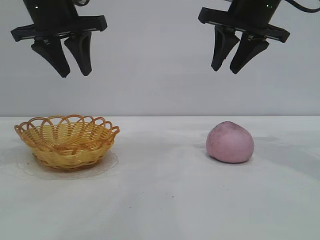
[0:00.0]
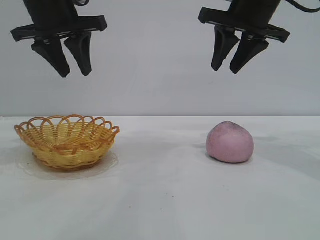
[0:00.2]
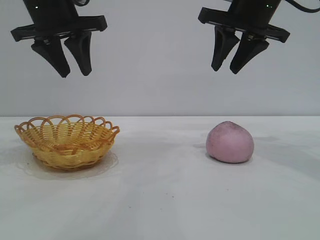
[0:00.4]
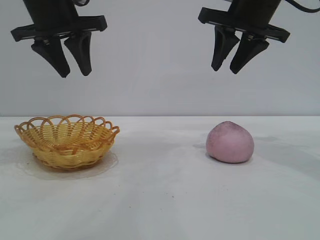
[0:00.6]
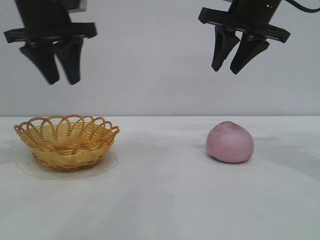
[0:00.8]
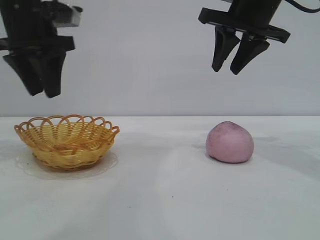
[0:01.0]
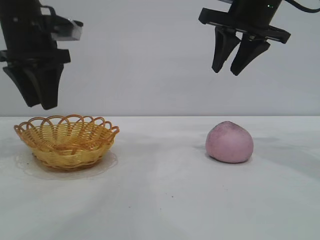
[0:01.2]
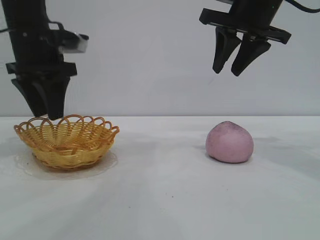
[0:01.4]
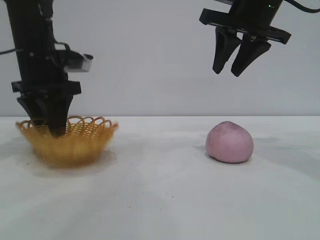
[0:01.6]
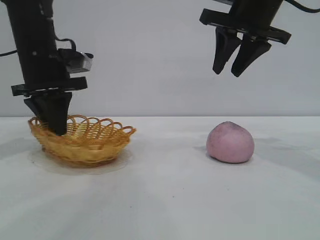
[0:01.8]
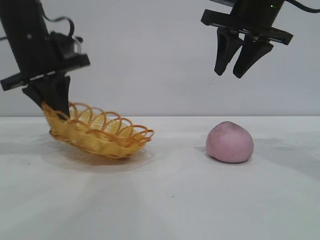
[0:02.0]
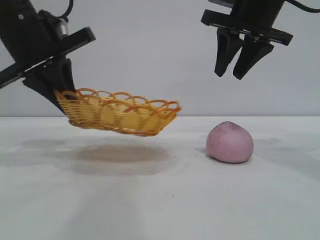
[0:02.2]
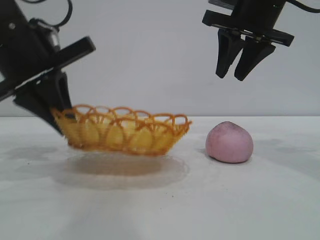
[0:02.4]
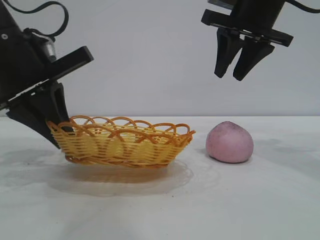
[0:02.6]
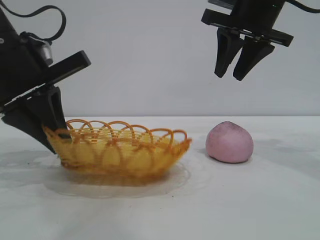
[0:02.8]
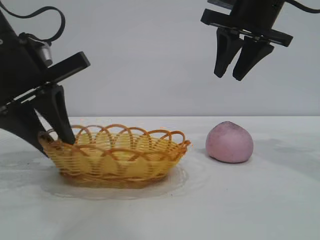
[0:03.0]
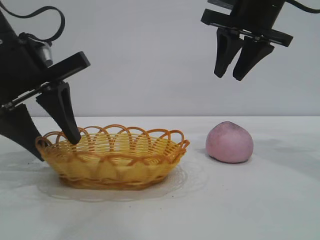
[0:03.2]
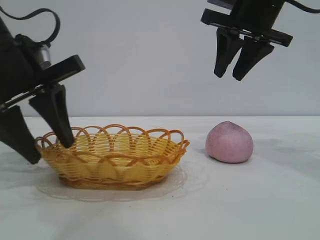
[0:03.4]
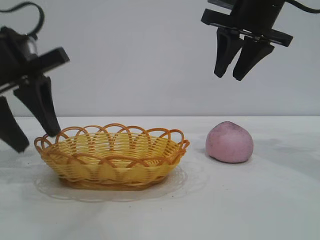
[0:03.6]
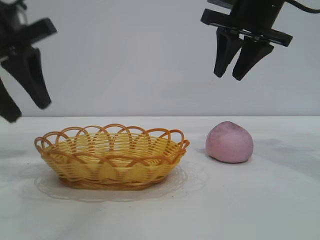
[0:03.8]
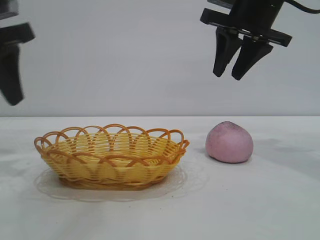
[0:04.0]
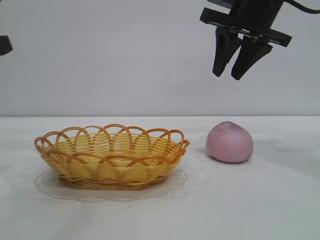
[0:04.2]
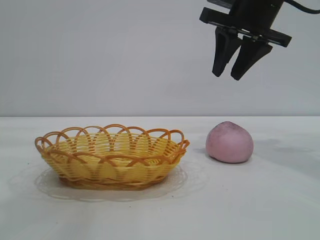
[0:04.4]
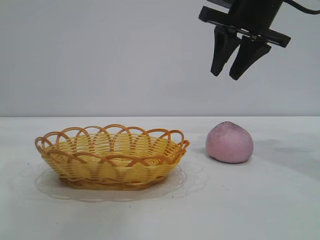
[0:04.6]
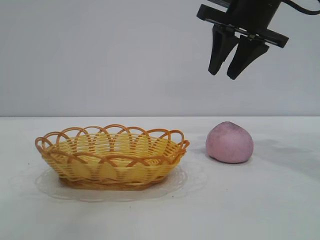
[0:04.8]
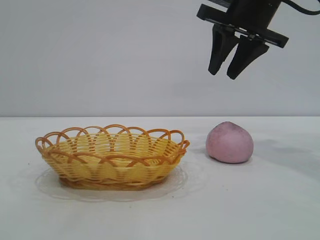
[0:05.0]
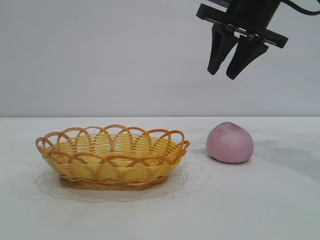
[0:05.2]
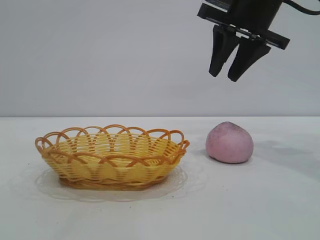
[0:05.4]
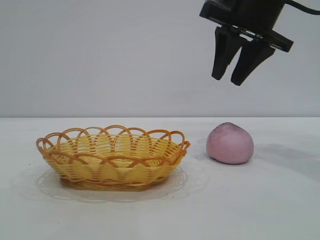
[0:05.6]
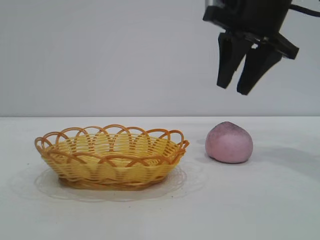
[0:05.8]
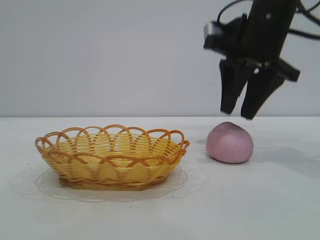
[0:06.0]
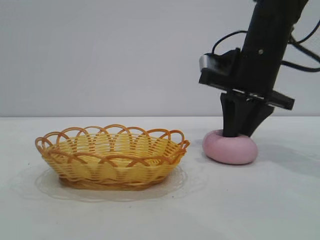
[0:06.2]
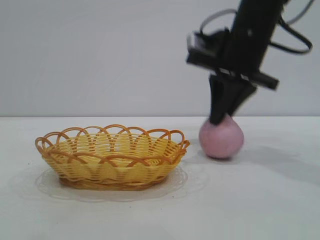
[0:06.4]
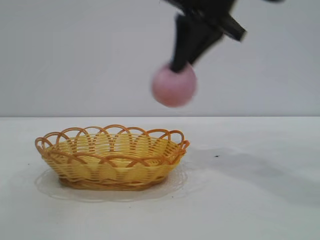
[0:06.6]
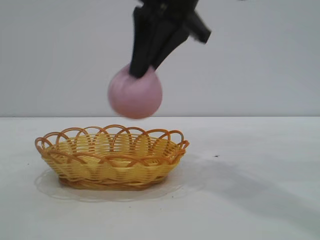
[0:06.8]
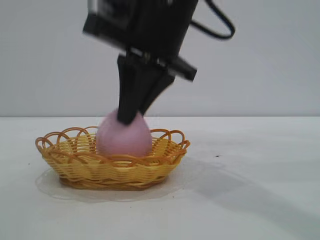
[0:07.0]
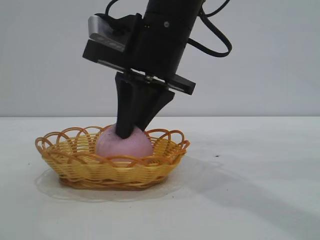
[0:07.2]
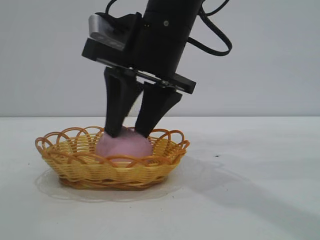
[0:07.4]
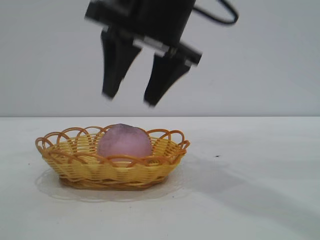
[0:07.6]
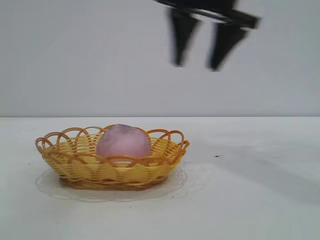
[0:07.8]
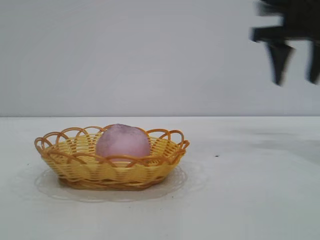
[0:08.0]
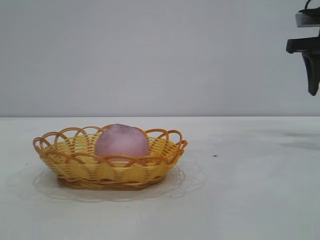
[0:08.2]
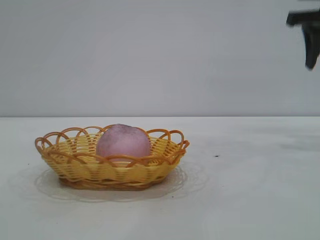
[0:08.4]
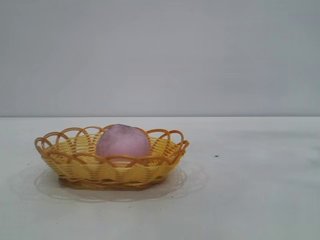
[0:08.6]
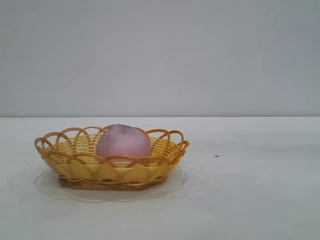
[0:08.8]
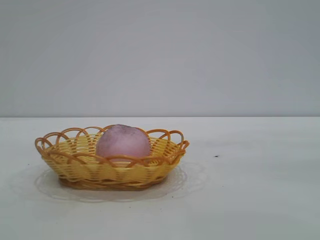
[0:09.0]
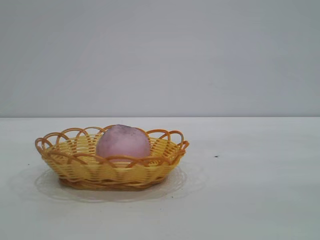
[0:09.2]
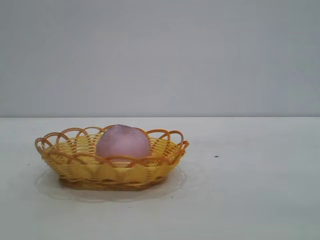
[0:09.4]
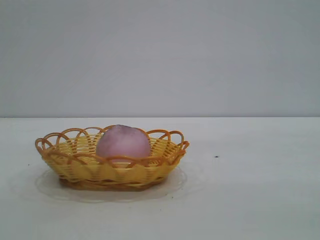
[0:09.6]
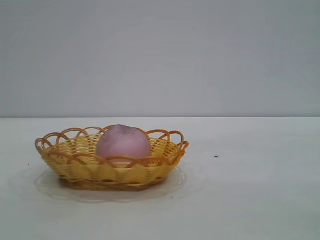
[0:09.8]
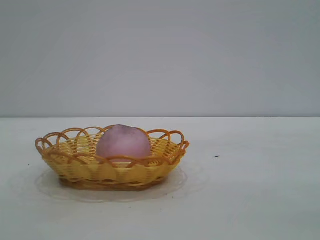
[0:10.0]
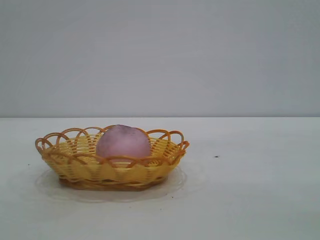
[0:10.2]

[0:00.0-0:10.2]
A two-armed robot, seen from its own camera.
Task of the whole recording: pick up the peach and put it into the basket.
Step, 0:00.0 to 0:03.6: Move the basket to the center of view.
Step, 0:03.8 to 0:06.4: Pick up the peach.
Step, 0:06.6 to 0:07.6: place the peach into the basket.
